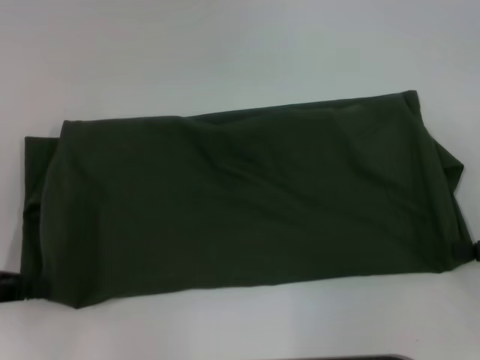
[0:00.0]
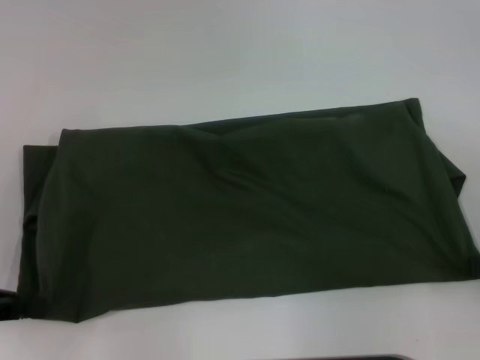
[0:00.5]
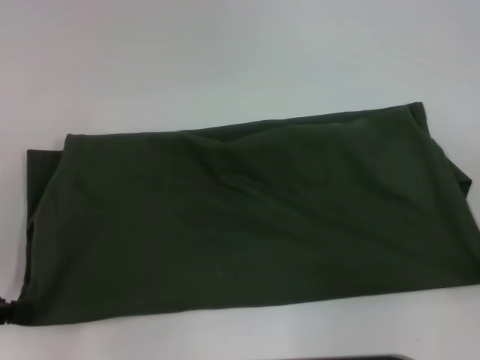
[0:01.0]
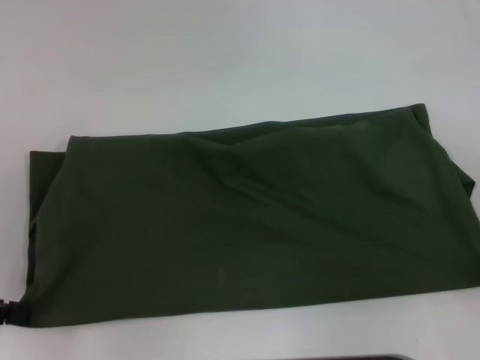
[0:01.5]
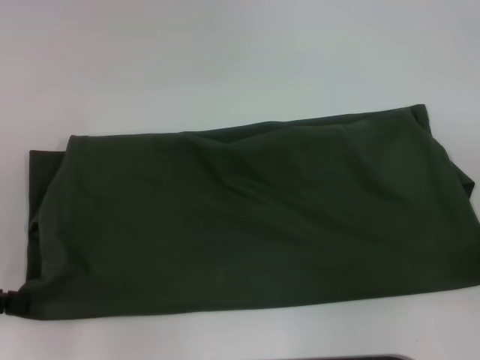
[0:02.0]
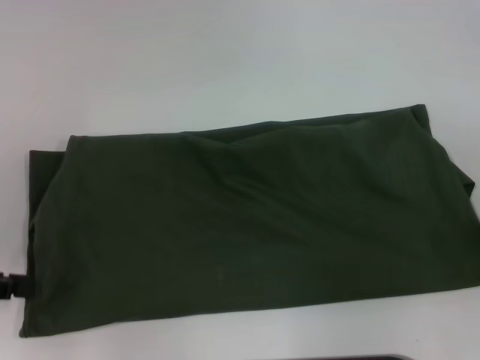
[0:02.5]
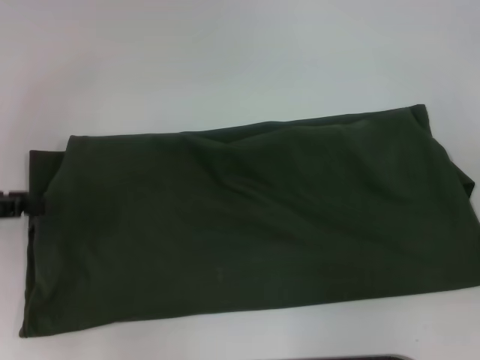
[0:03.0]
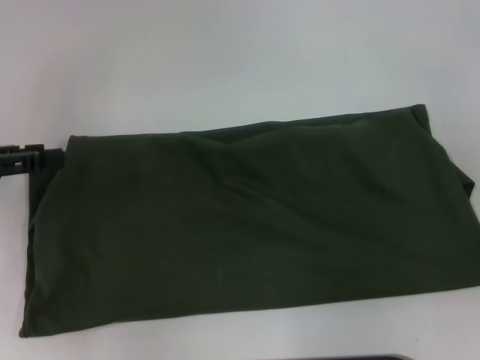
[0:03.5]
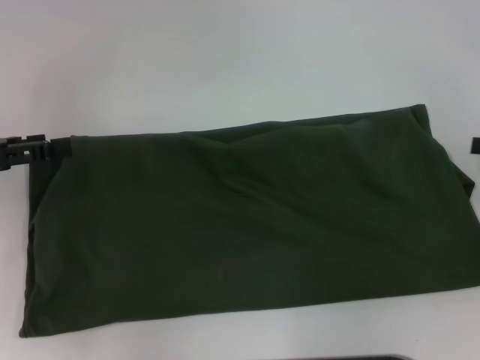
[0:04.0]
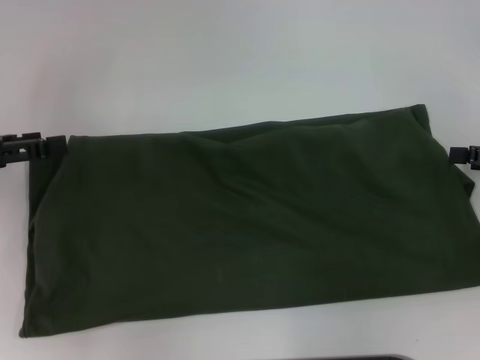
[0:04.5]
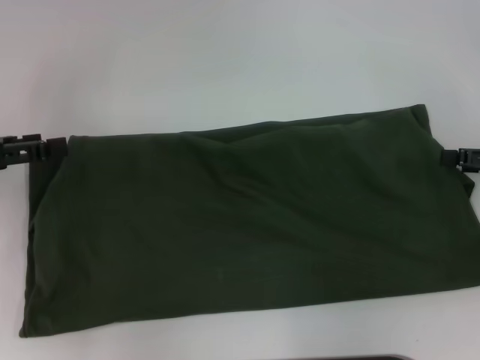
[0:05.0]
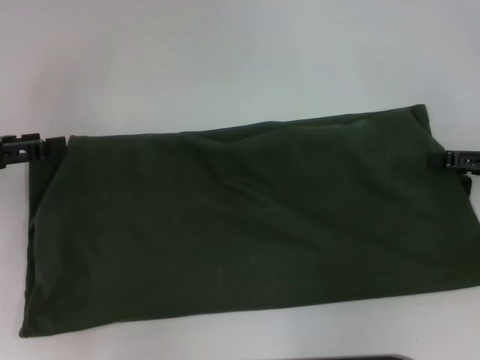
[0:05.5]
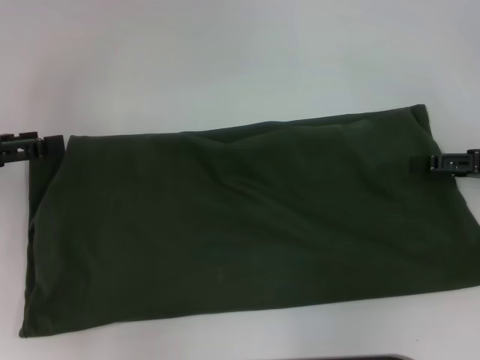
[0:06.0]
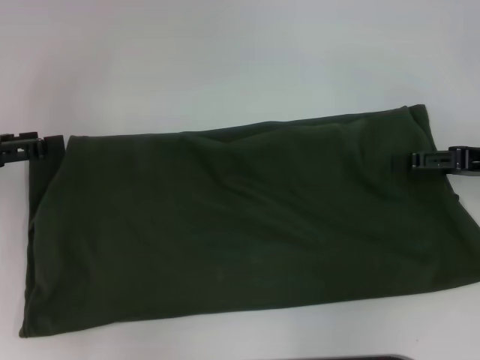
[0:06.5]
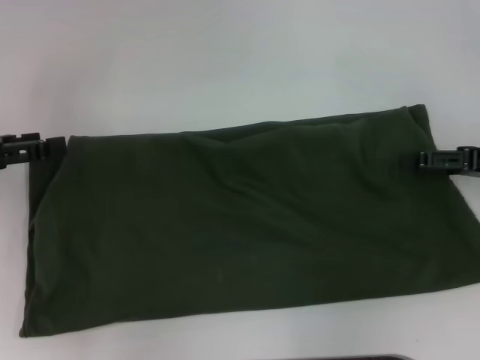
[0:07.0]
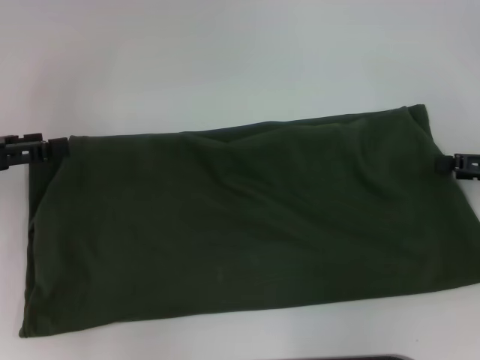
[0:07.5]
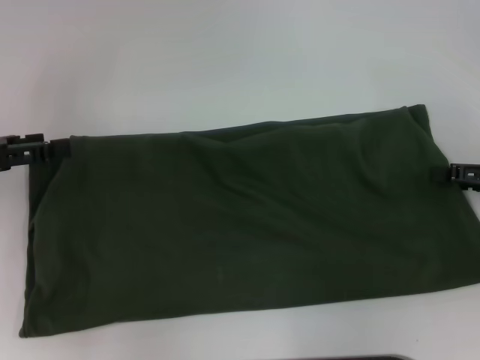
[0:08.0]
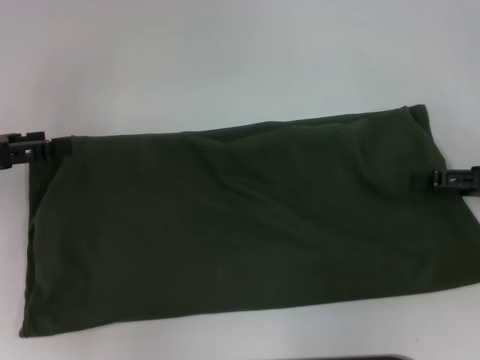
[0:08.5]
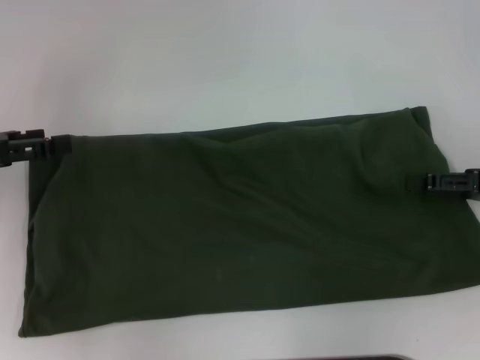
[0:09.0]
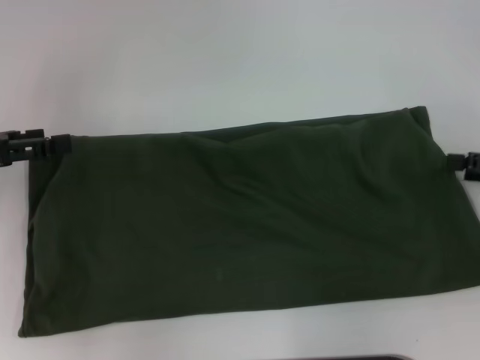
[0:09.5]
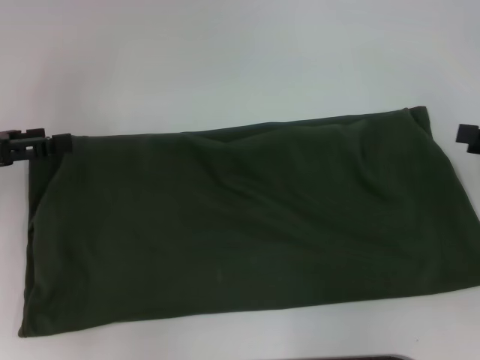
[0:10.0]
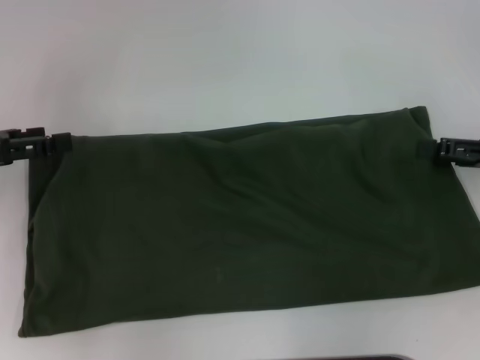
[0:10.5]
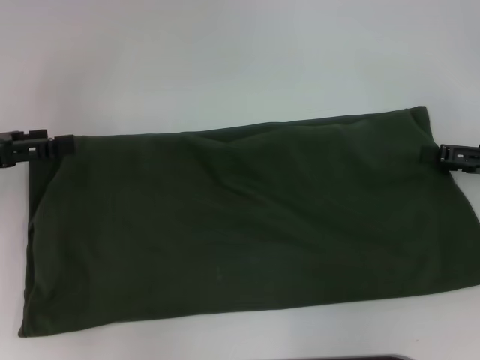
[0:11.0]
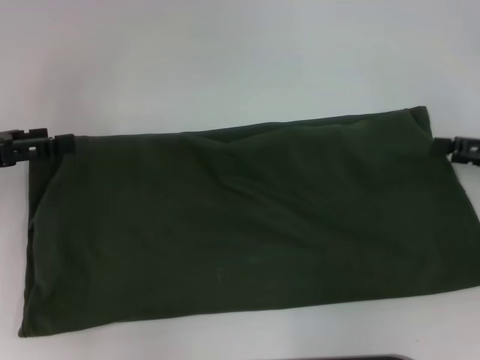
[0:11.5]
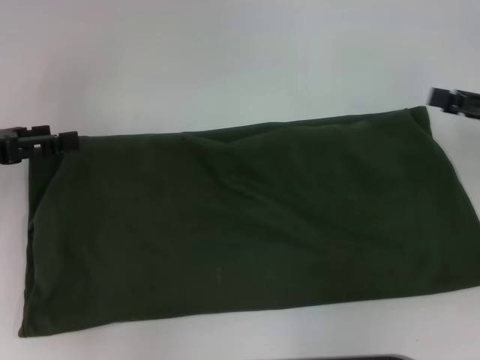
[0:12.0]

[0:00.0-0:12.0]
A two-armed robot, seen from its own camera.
Step, 0:00.0 to 0:02.0: Pull the clothes with your left hand.
Step, 0:00.0 to 0:02.0: Pull the clothes with your right hand.
0:00.0 to 0:02.0: The grippers move only a little.
0:02.0 to 0:04.0: The left gripper moves forward, some 5 cm, and opens up.
0:04.0 to 0:06.0: The right gripper changes place by roughly 5 cm.
0:06.0 to 0:12.0: The grippers stay close to where they were, moving slightly.

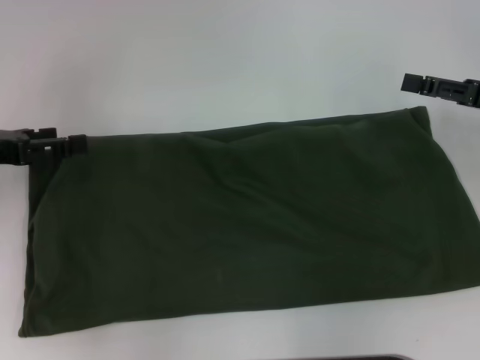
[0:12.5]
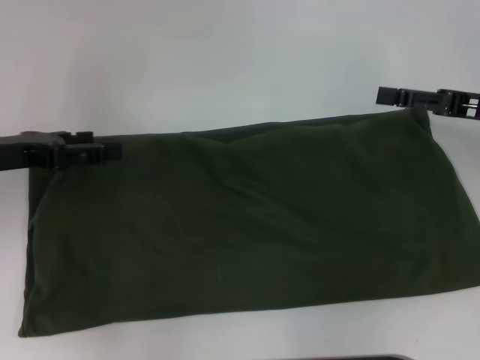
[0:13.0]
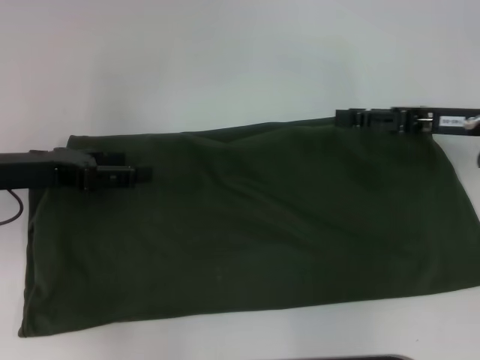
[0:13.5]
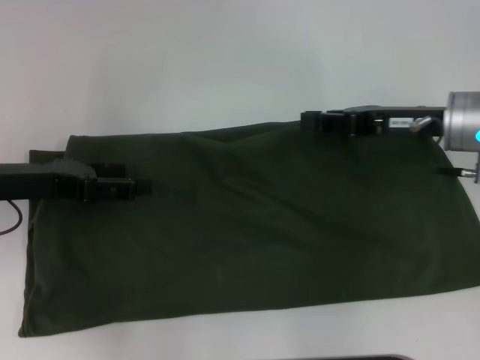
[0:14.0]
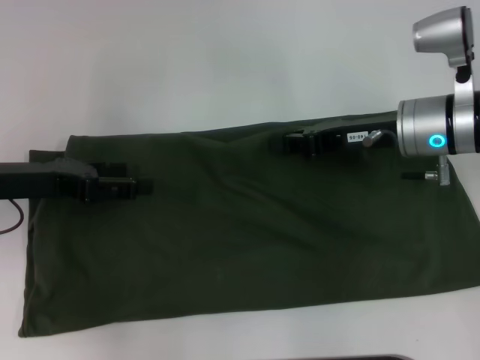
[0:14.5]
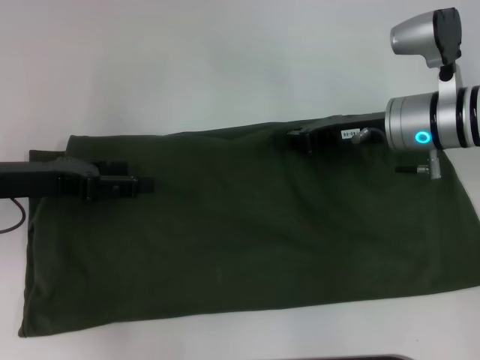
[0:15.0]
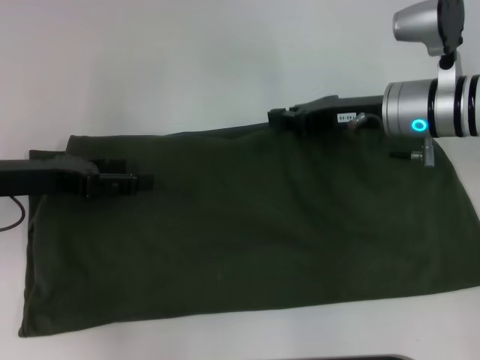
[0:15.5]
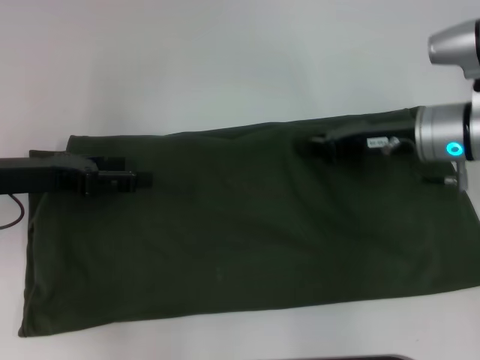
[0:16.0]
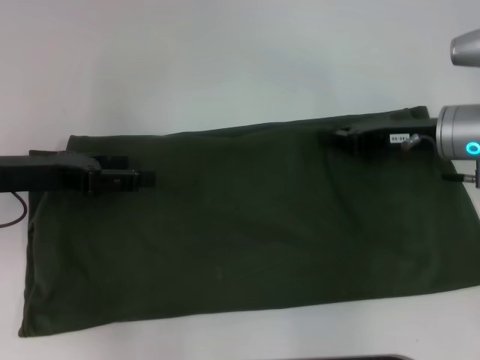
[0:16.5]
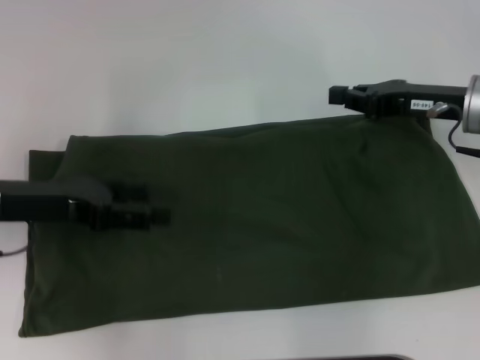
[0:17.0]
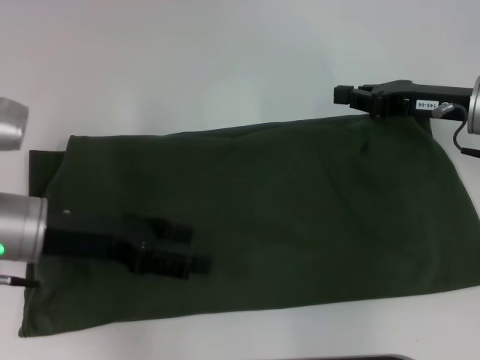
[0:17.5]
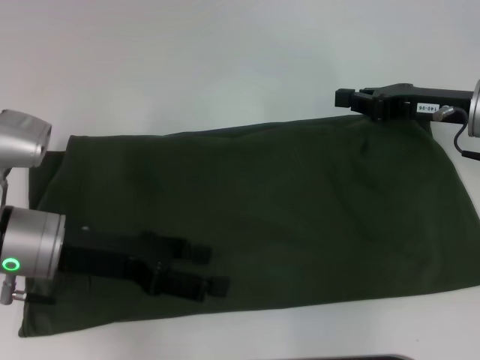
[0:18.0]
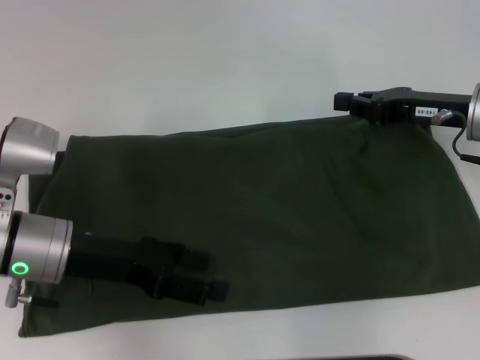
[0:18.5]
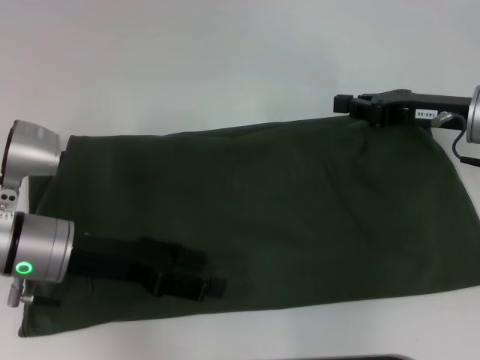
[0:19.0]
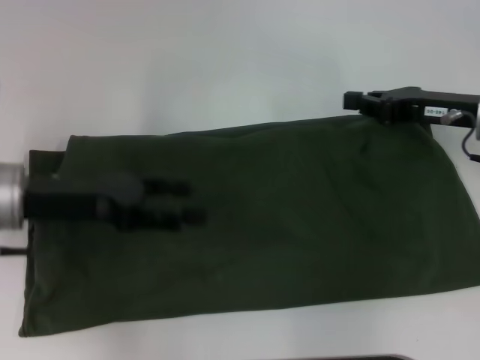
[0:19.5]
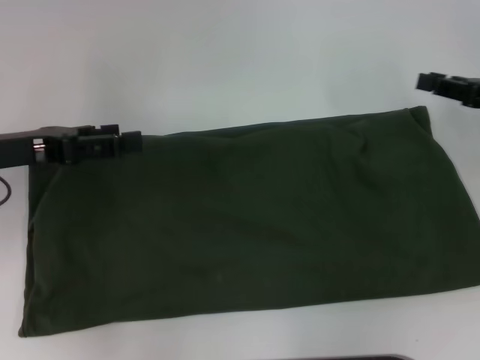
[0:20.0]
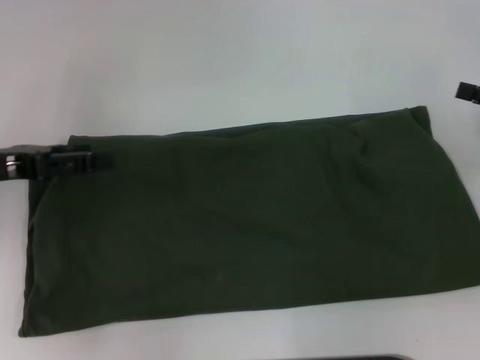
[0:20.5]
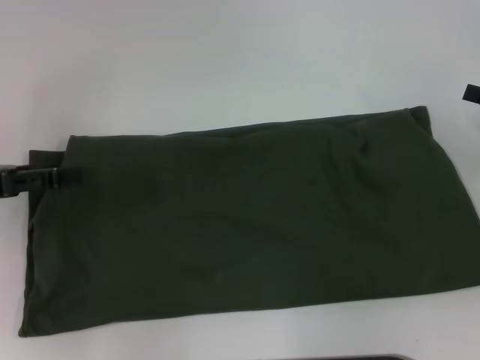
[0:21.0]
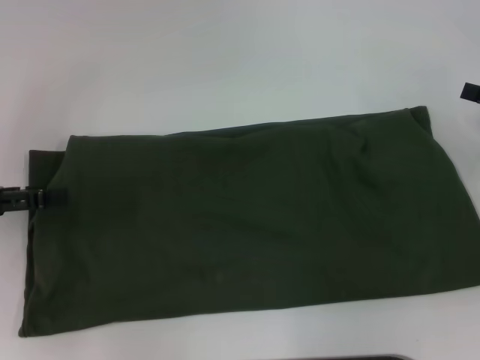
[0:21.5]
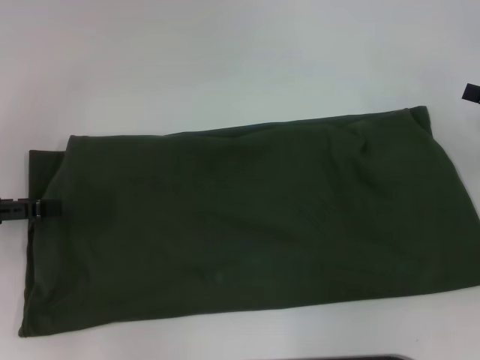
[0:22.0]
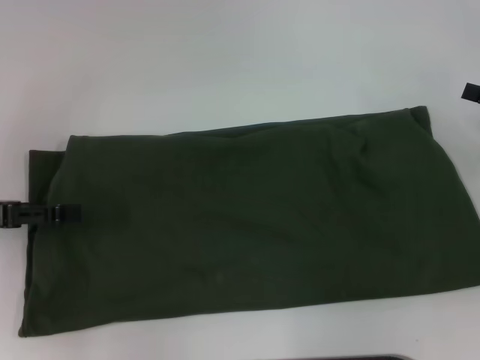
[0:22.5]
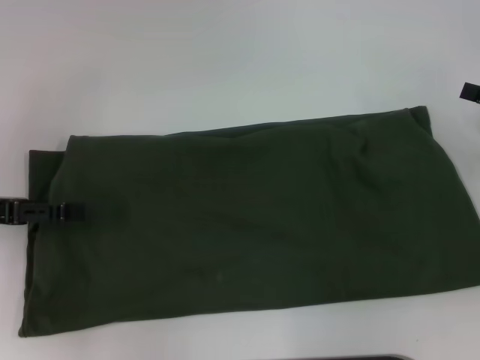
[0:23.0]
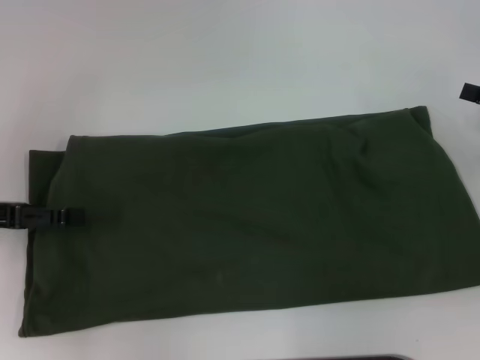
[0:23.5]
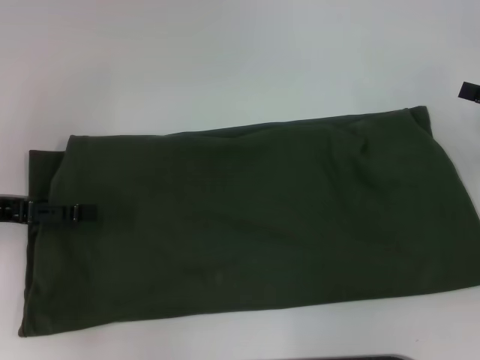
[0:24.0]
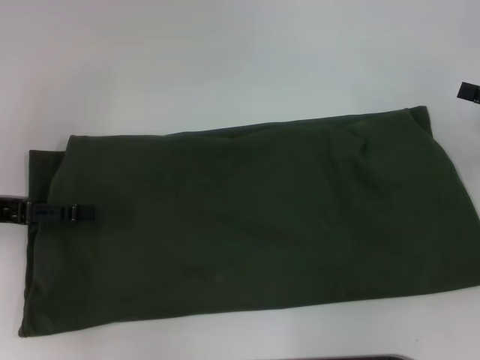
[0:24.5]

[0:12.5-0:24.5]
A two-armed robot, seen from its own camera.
0:12.5 to 0:14.5: The right gripper moves to the left, about 15 cm, and closes. Meanwhile the left gripper heads to the right, covering about 5 cm.
0:14.5 to 0:16.5: The grippers move only a little.
0:16.5 to 0:18.5: The left gripper shifts roughly 5 cm to the right.
0:18.5 to 0:20.5: The right gripper heads to the right, covering about 10 cm, and opens, while the left gripper moves to the left, roughly 10 cm.
0:20.5 to 0:22.5: The grippers stay close to where they were, moving slightly.

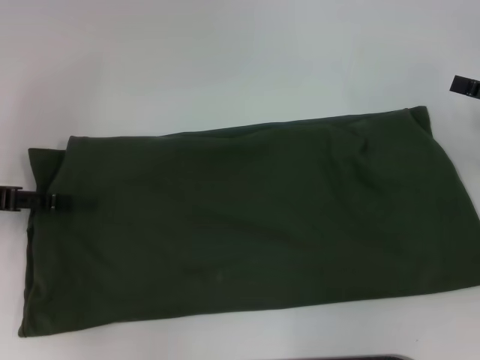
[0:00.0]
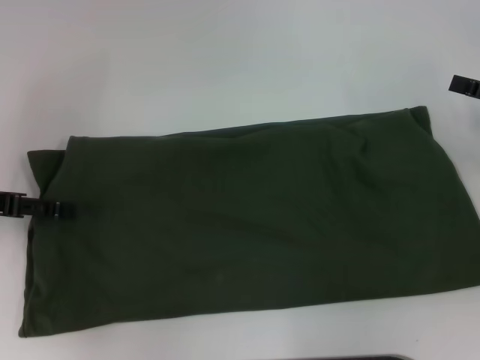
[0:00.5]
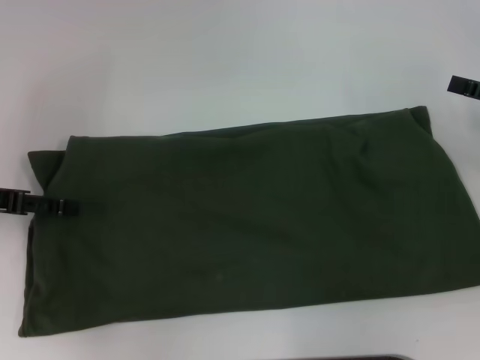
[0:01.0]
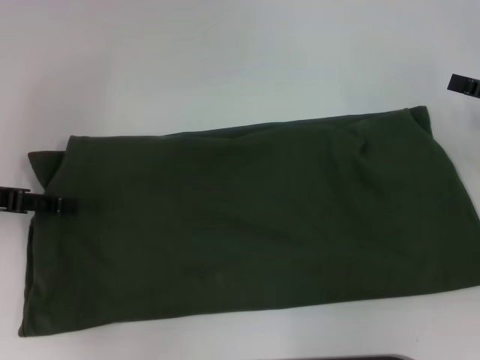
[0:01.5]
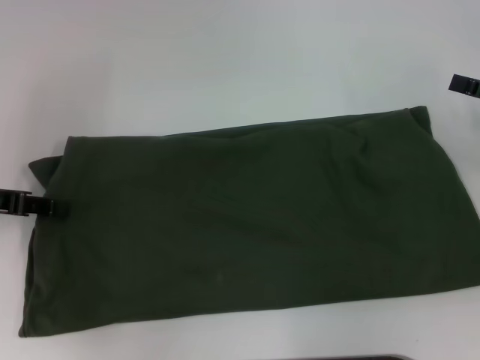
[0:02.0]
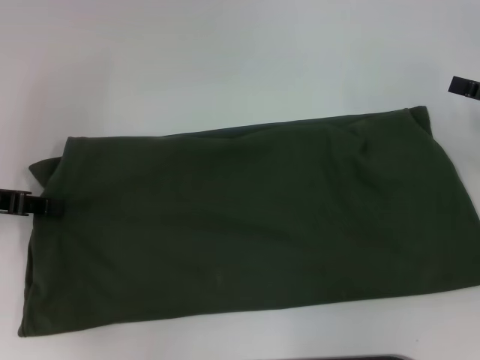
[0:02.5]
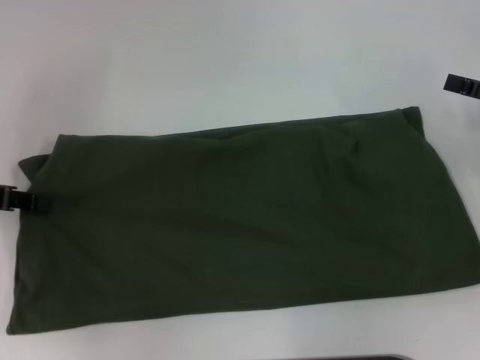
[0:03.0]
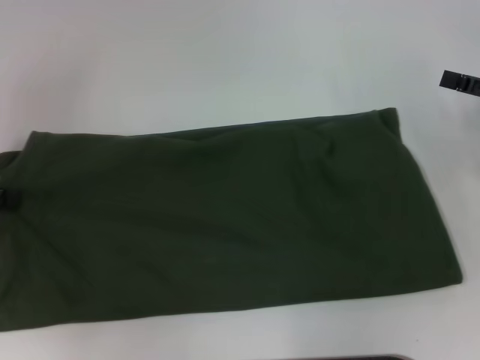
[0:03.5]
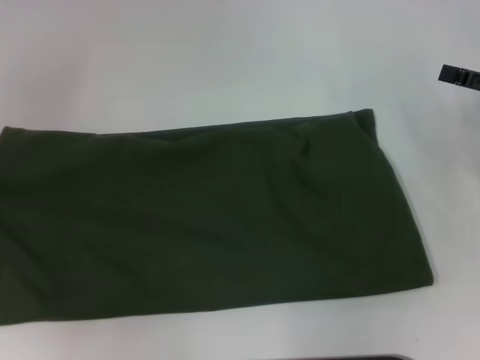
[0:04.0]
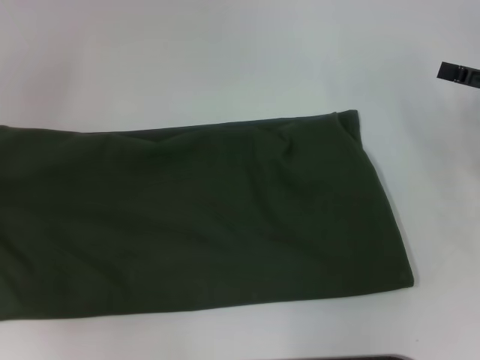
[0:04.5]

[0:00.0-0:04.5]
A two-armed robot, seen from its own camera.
0:00.0 to 0:02.0: The left gripper closes.
0:02.0 to 0:04.5: The left gripper is displaced to the left and upward by approximately 10 cm, and closes up.
